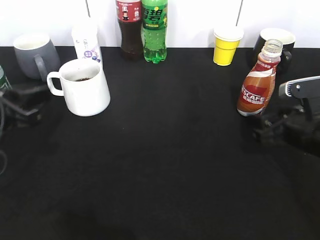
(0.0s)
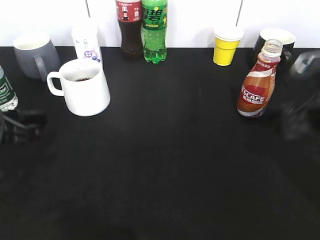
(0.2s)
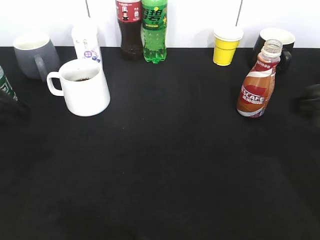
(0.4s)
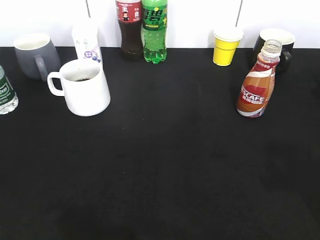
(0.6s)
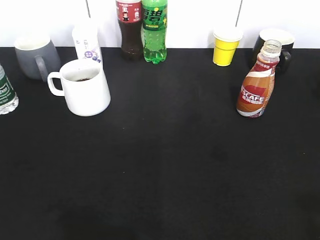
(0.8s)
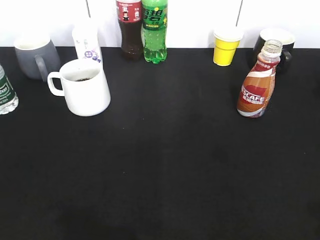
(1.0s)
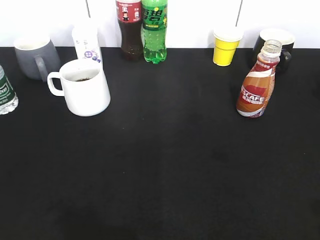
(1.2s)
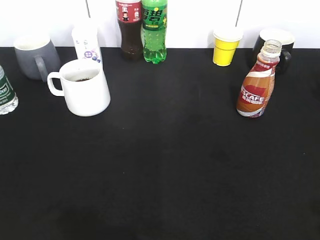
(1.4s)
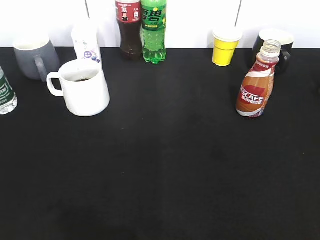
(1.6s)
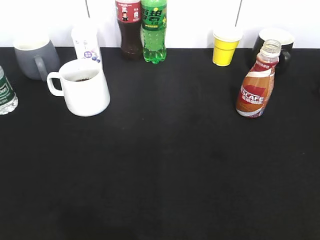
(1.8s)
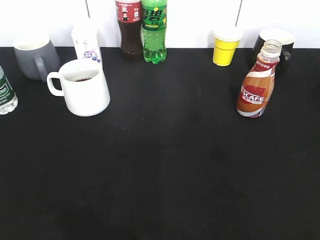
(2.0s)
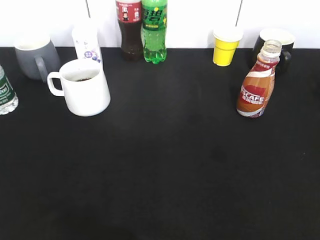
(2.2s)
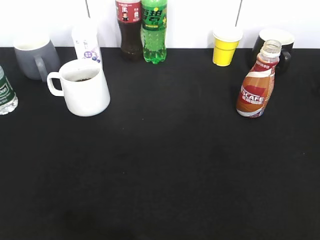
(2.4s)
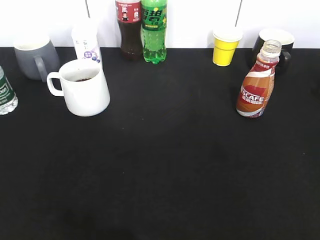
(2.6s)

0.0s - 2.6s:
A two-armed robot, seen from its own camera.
0.0s - 1.2s: The grippers both shift backward and upward by about 25 cm.
